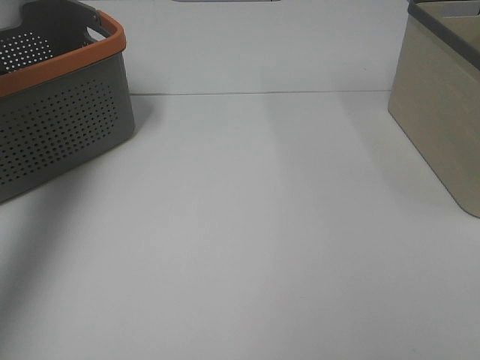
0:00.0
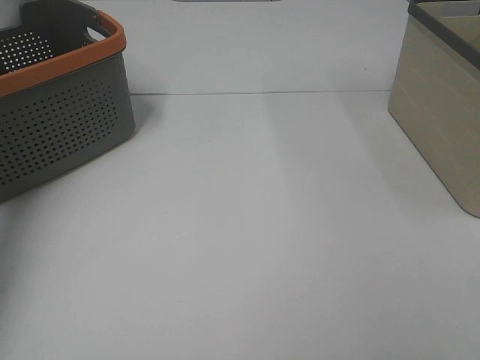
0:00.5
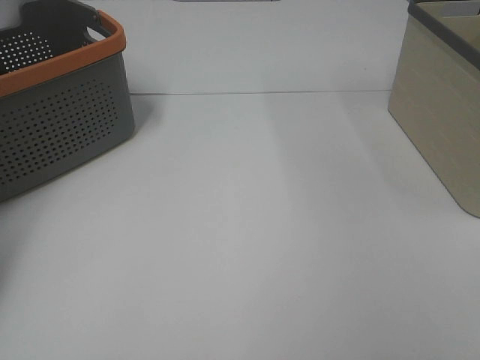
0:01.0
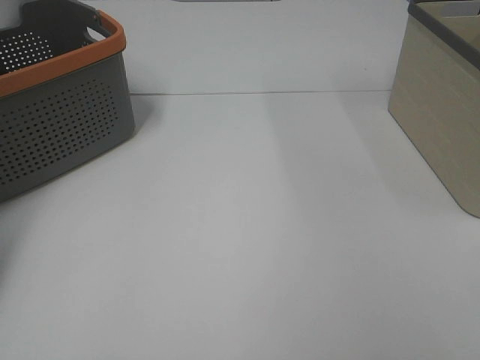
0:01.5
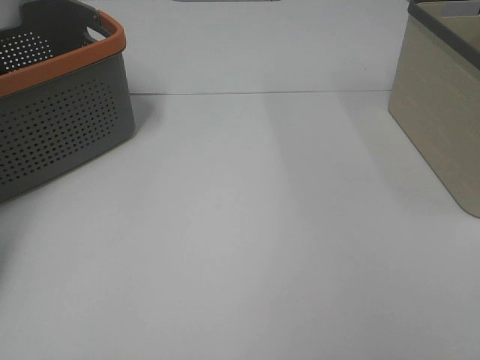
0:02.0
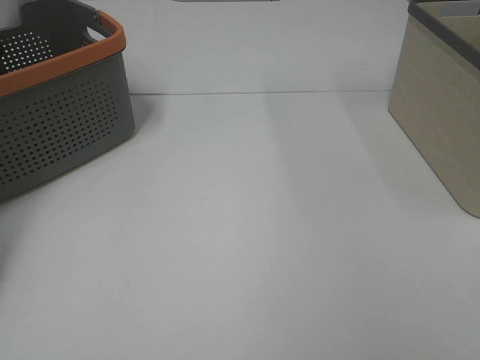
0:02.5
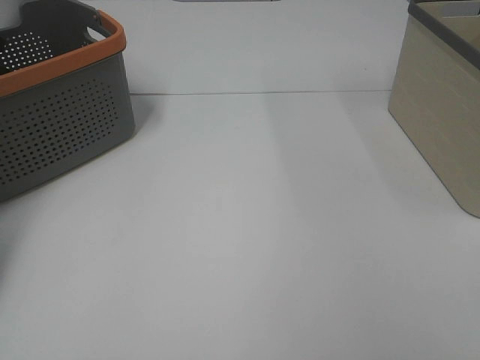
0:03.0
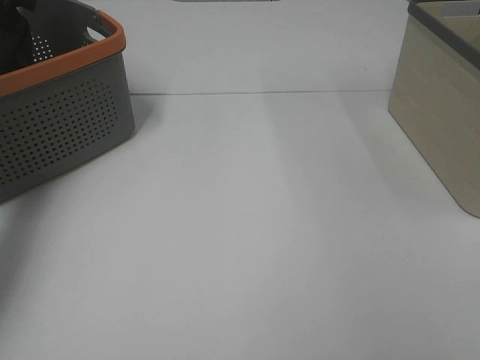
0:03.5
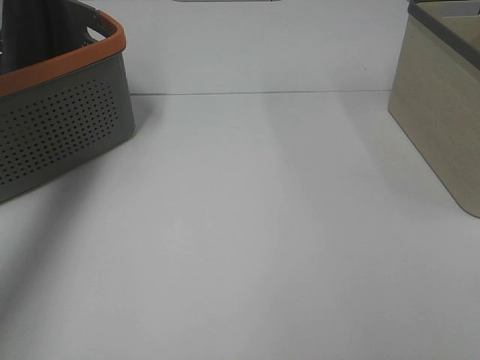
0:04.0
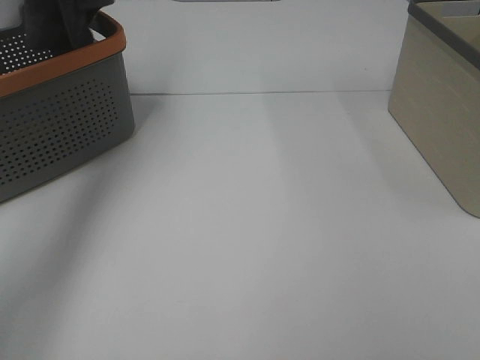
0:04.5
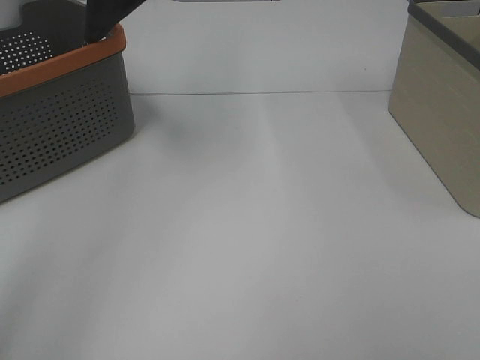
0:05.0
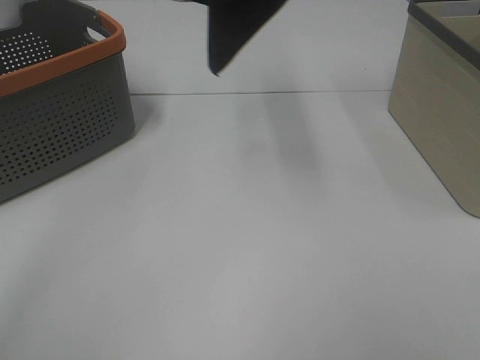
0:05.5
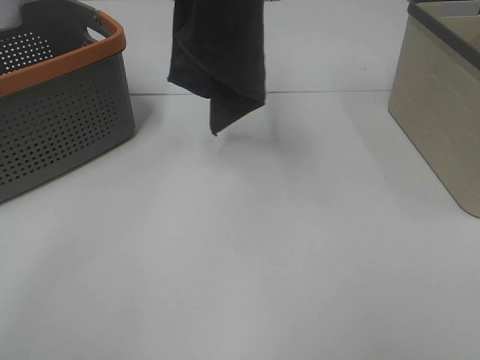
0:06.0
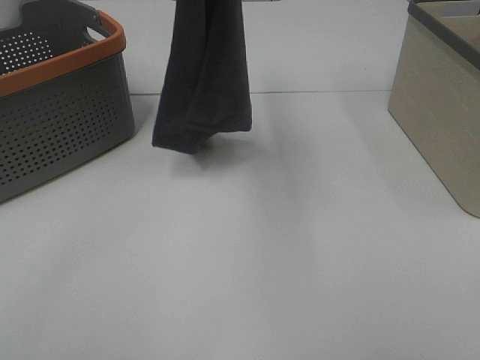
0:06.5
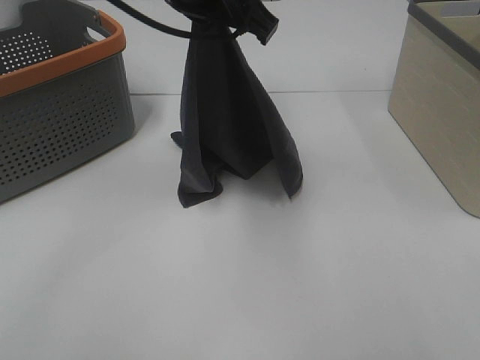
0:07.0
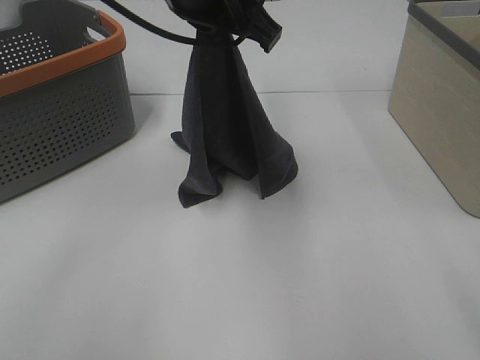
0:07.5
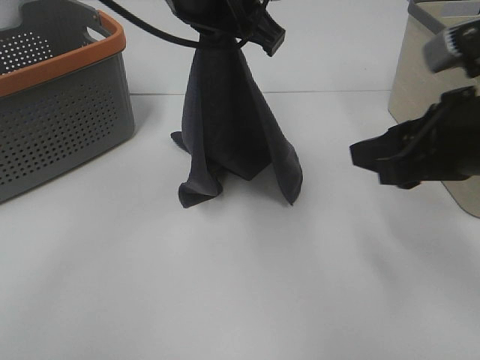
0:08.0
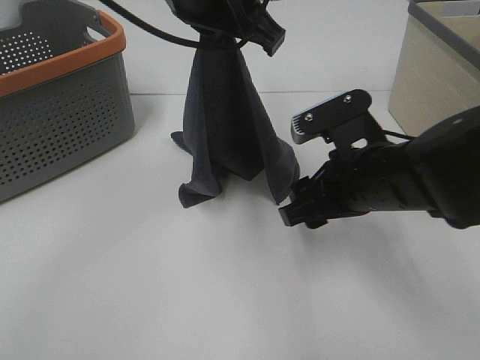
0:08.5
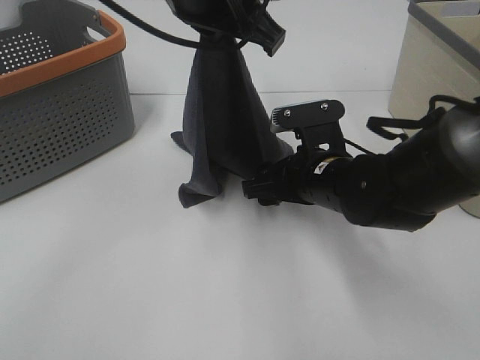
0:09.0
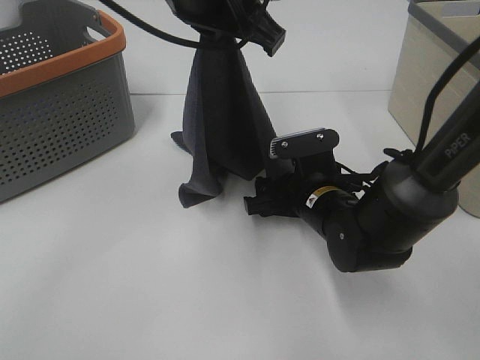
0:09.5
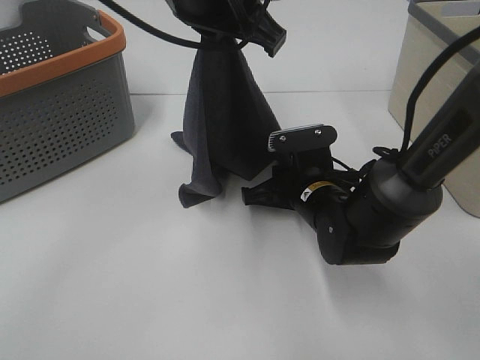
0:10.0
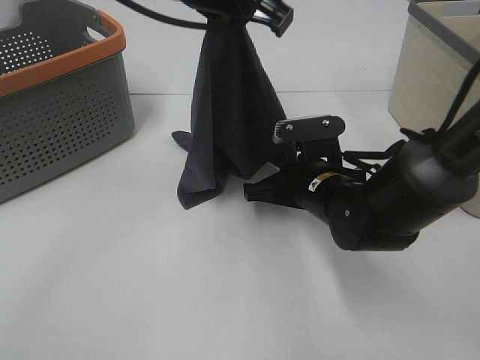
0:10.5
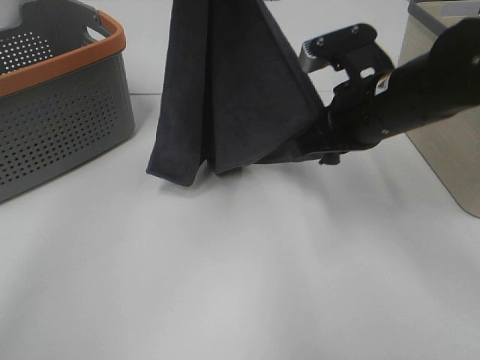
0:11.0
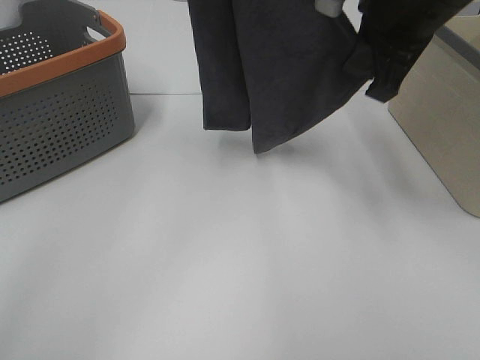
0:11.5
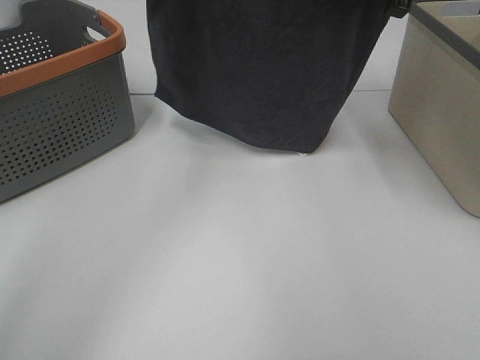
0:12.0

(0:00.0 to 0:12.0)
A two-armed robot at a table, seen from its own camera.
Task of the whole recording: Remove the towel and place it.
Step, 0:05.0 - 0:08.5: Right hand: grab a corner of the grey towel and straighten it.
Step, 0:09.0 - 0:10.5: Left hand: spread the grey towel flat on the table.
Step, 0:09.0 - 0:10.5: Right hand: spread the grey towel flat on the table.
0:00.0 - 0:02.0: The left gripper heads downward, forward and to the left, covering roughly 25 cm.
0:02.0 - 0:04.0: The left gripper shifts some 25 cm upward and to the right, and closes up.
0:04.0 - 0:06.0: The left gripper moves to the right and backward, approximately 25 cm.
0:06.0 - 0:08.0: The left gripper shifts roughly 15 cm downward; the right gripper is displaced forward by approximately 20 cm.
0:08.0 - 0:10.0: The right gripper goes some 25 cm downward, to the left and forward, and closes up.
0:10.0 - 0:12.0: The left gripper travels to the left and forward by roughly 15 cm. The right gripper travels upward by roughly 30 cm.

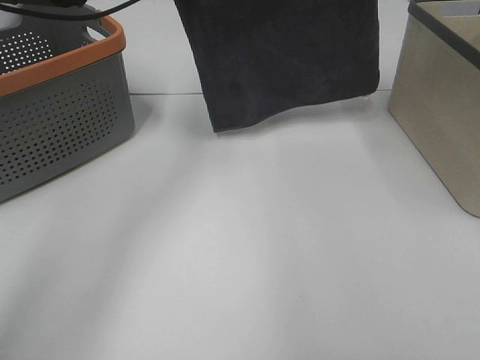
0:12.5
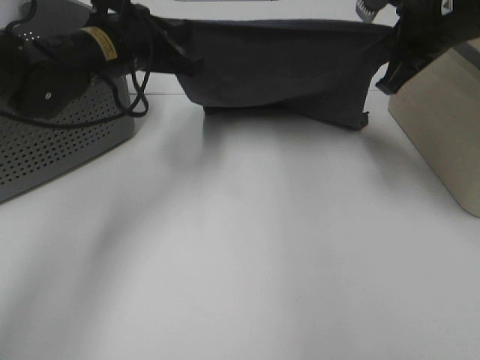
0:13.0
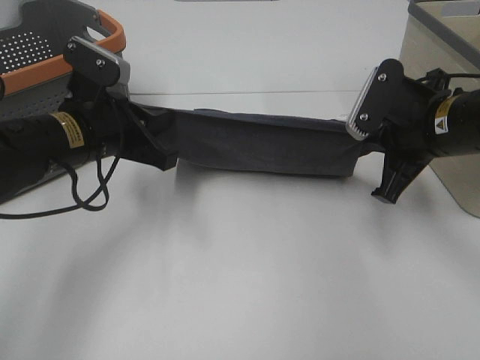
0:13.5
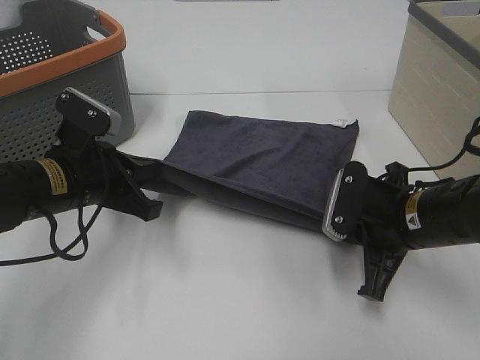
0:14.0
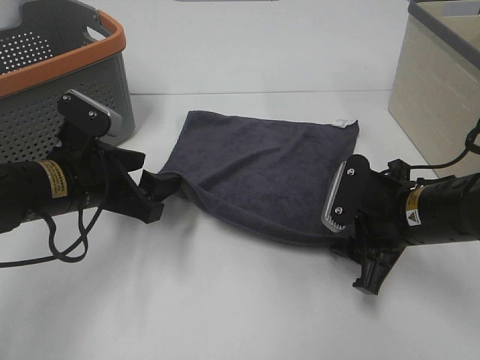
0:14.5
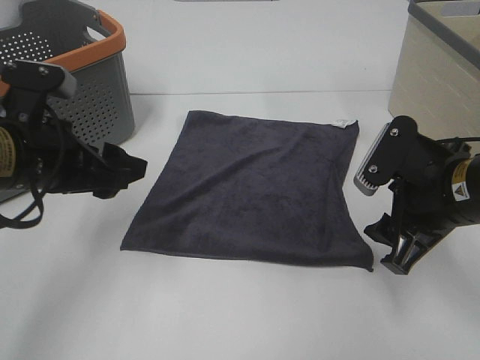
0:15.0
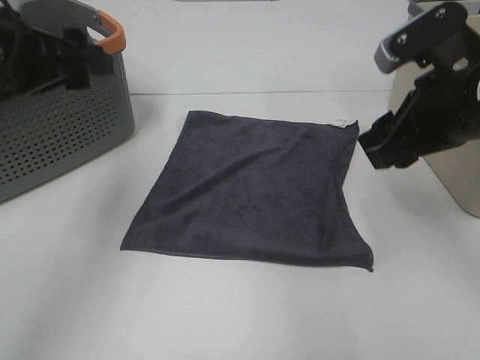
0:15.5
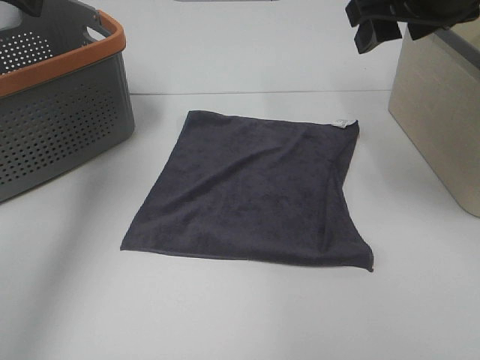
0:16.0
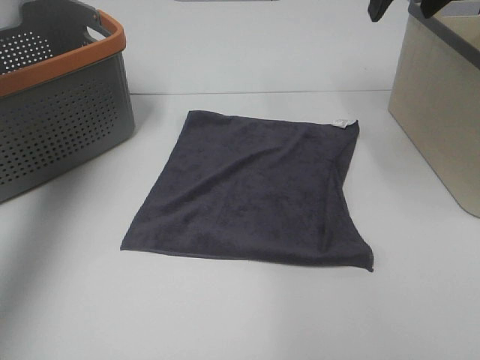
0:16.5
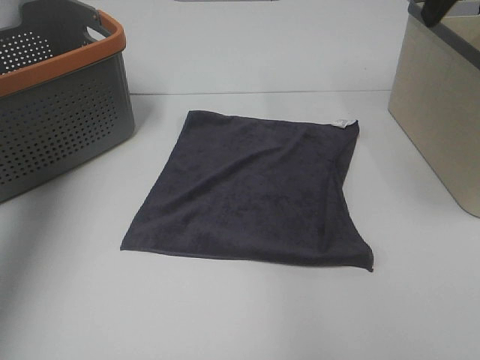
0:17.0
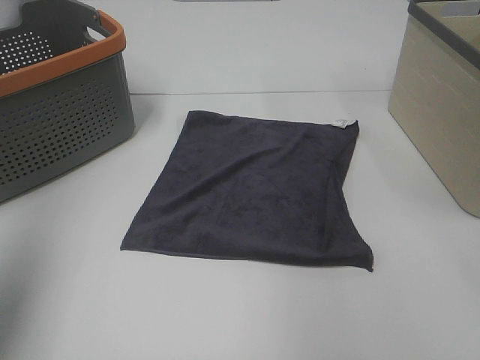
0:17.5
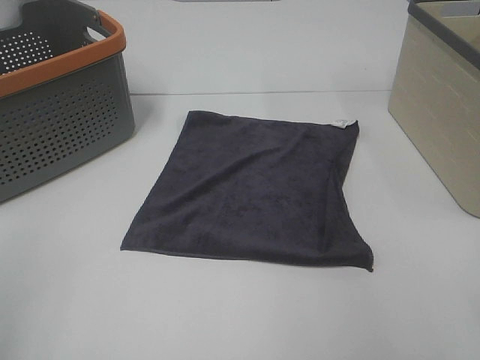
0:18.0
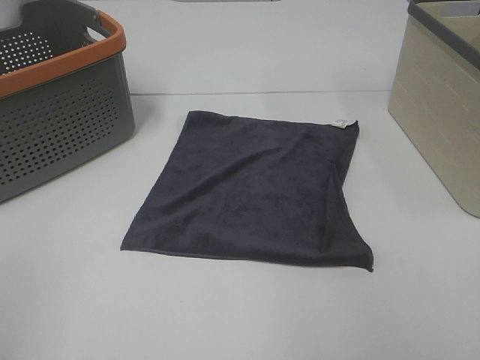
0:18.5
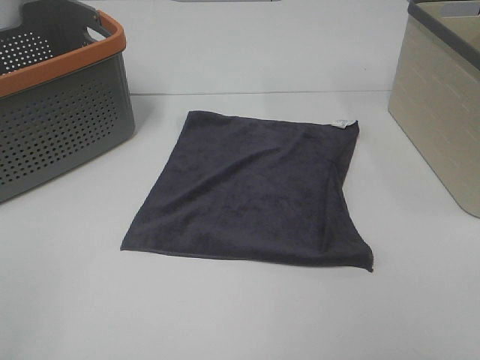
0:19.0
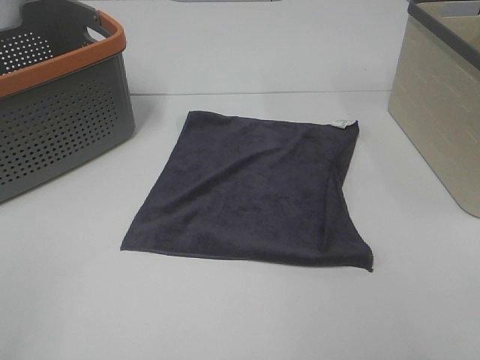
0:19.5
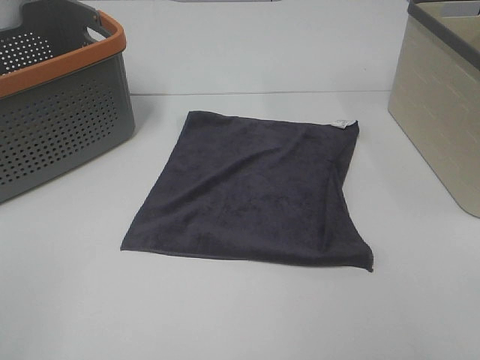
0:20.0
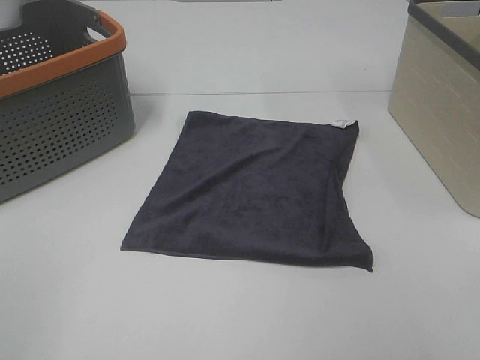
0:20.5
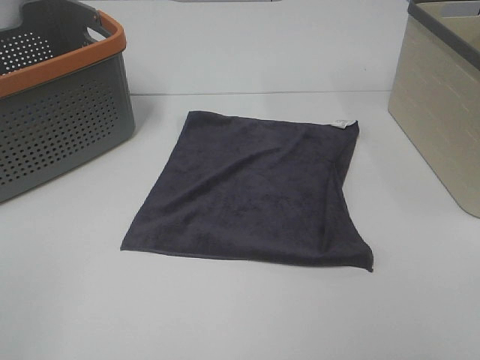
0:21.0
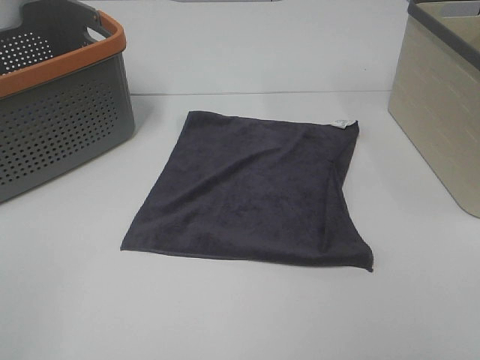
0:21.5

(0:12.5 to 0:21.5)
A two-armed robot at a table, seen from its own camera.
Task of the whole recording: Remove the towel and place it.
0:12.5 - 0:14.5: The two grippers go about 30 cm downward and backward. The left gripper opens its fingers, while the right gripper opens.
0:14.5 - 0:17.0: The right gripper shifts roughly 25 cm upward. The left gripper goes some 30 cm upward and to the left.
0:17.0 - 0:19.5: Both grippers travel together backward, roughly 30 cm.

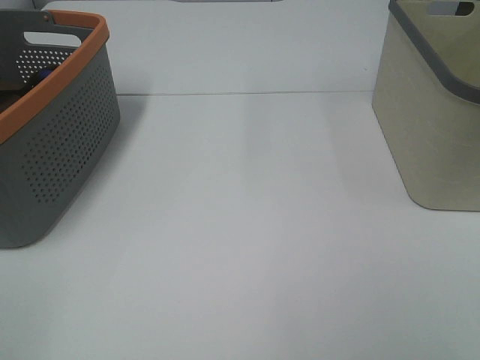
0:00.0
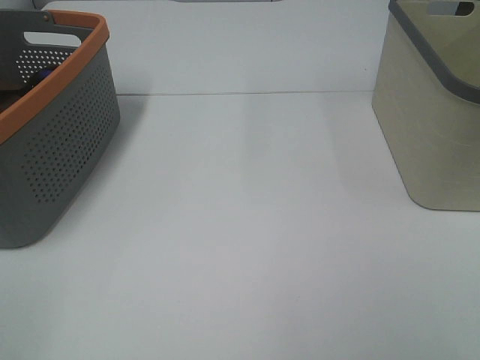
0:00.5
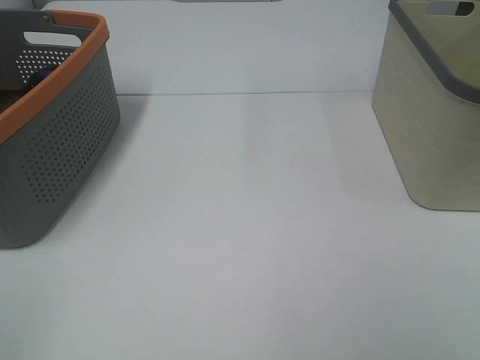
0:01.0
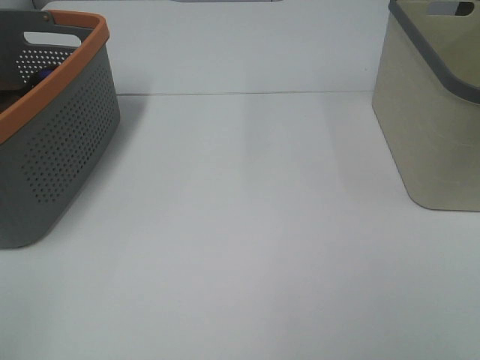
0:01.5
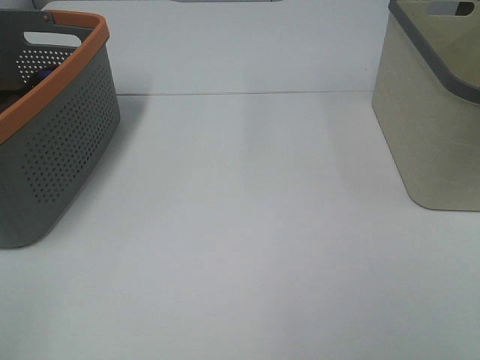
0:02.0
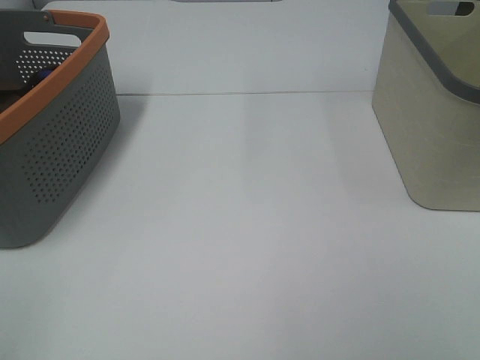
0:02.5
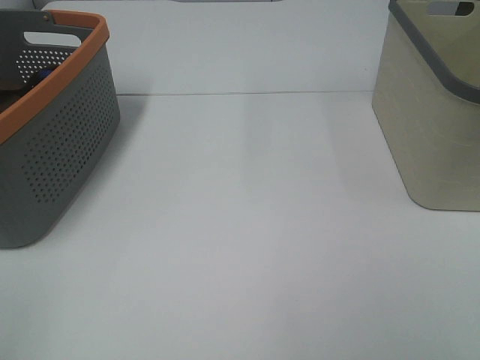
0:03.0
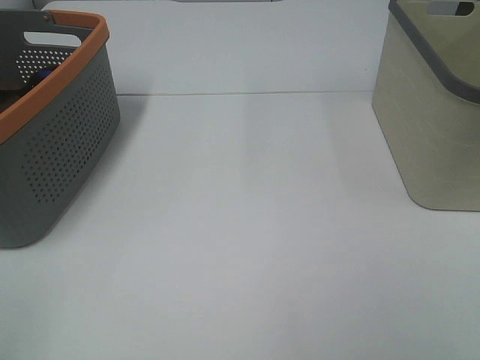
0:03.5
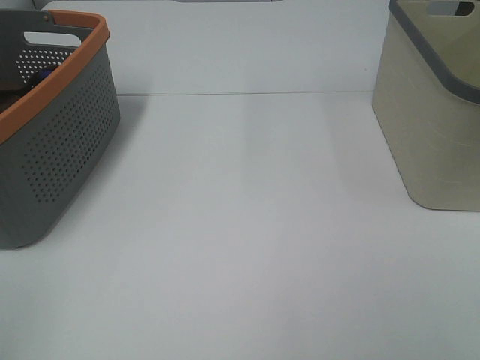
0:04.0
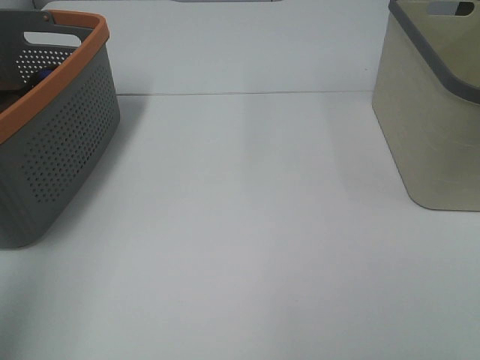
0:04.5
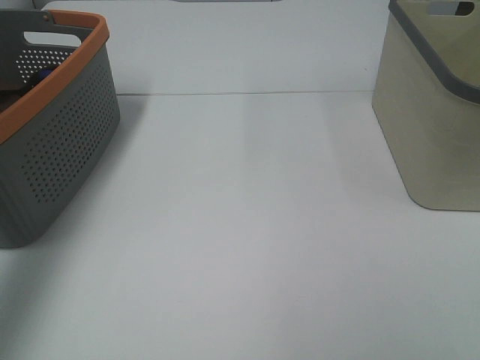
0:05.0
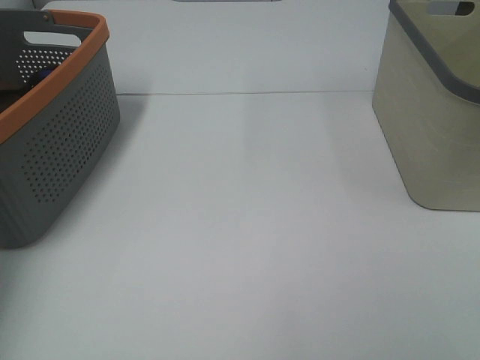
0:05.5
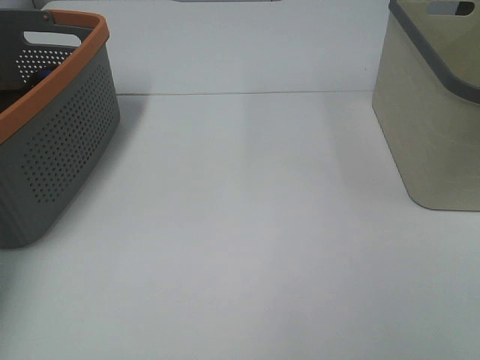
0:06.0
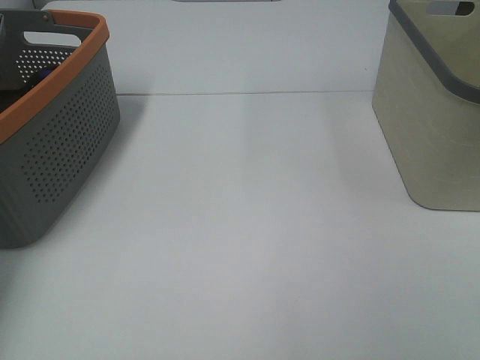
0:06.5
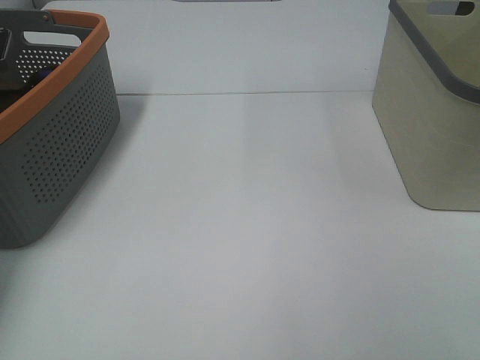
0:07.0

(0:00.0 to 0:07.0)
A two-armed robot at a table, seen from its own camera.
Task of the whole recording: Remove the towel and place it.
0:00.0 - 0:03.5: Both grippers stay put.
0:03.5 - 0:05.0: The left gripper is displaced forward and upward by about 30 cm.
0:05.0 - 0:07.0: The left gripper is displaced downward and forward by approximately 30 cm.
